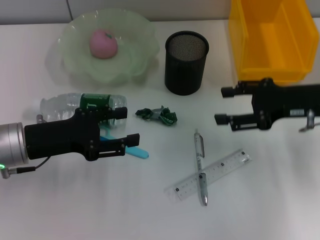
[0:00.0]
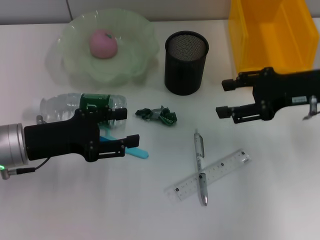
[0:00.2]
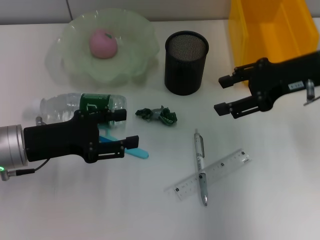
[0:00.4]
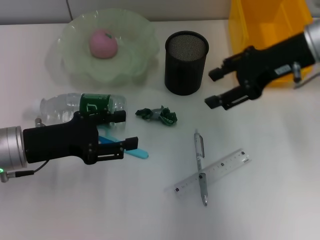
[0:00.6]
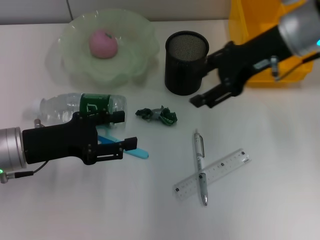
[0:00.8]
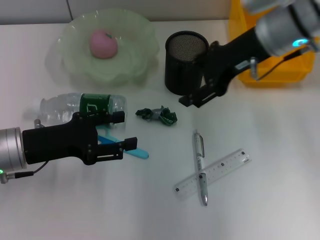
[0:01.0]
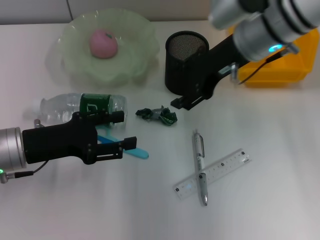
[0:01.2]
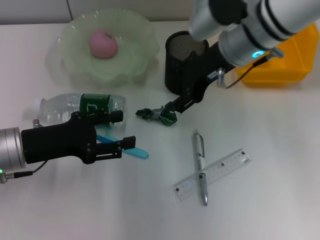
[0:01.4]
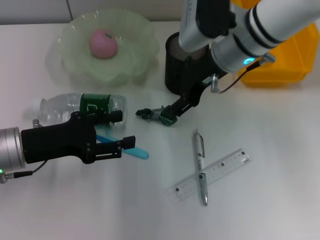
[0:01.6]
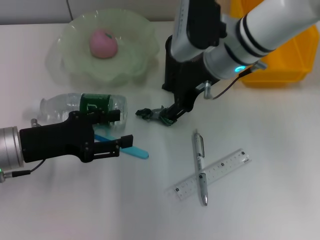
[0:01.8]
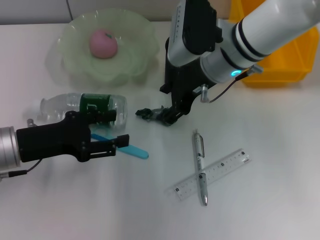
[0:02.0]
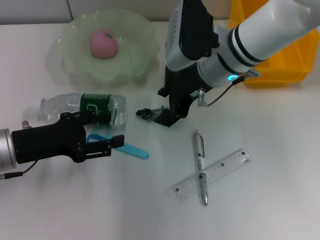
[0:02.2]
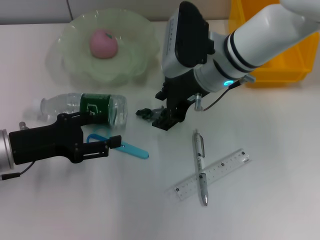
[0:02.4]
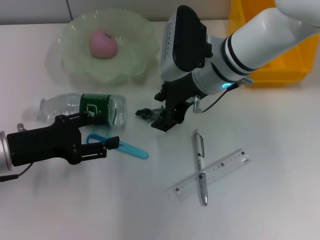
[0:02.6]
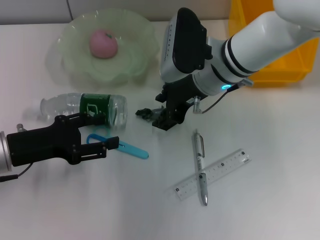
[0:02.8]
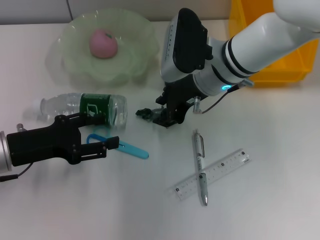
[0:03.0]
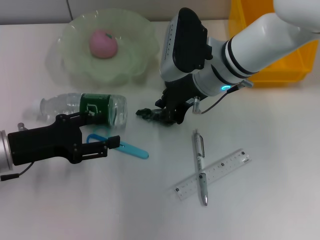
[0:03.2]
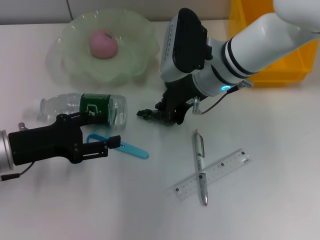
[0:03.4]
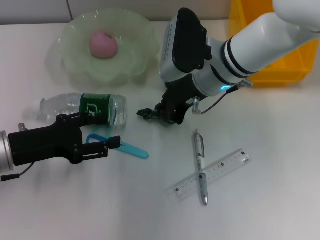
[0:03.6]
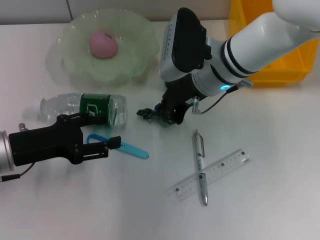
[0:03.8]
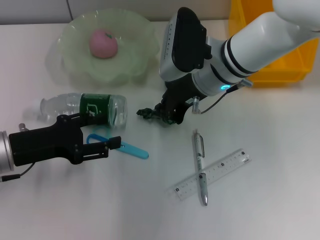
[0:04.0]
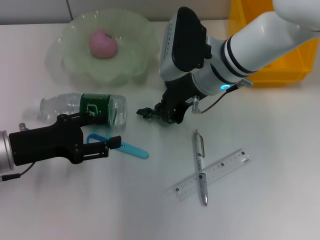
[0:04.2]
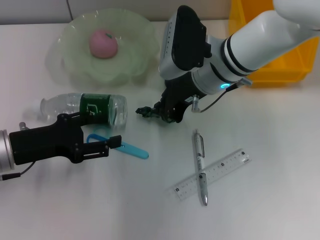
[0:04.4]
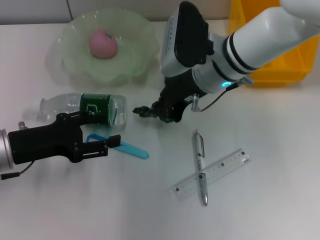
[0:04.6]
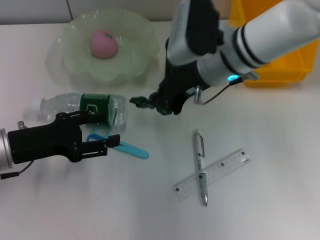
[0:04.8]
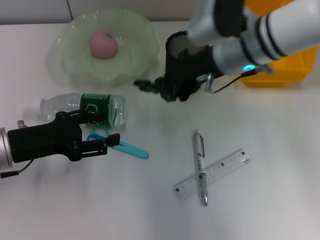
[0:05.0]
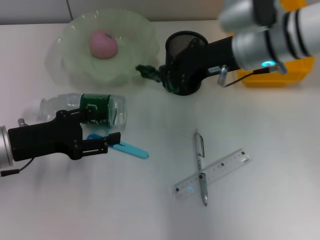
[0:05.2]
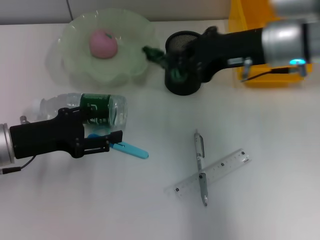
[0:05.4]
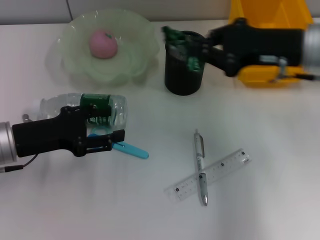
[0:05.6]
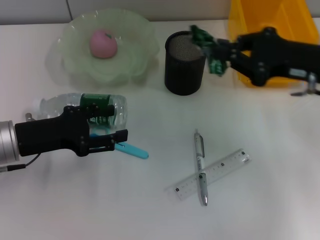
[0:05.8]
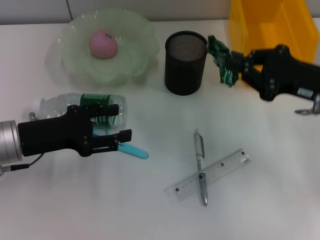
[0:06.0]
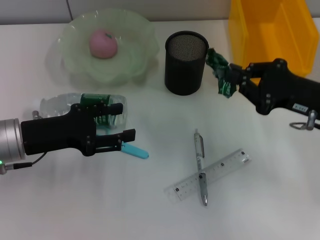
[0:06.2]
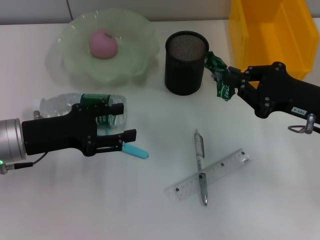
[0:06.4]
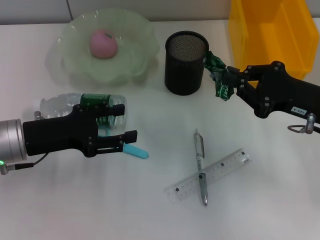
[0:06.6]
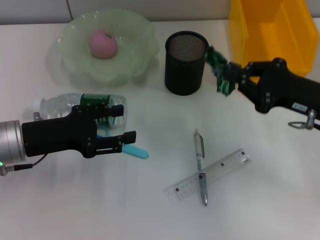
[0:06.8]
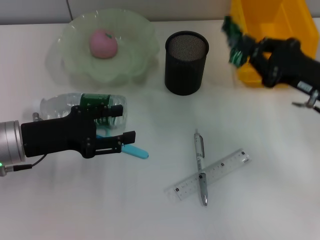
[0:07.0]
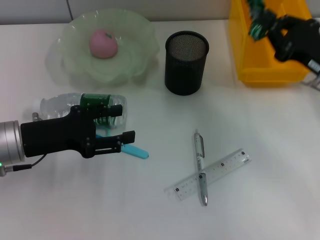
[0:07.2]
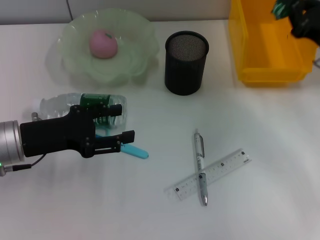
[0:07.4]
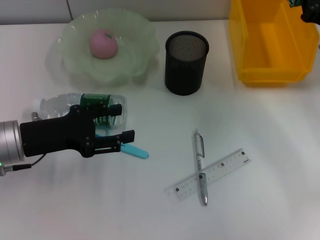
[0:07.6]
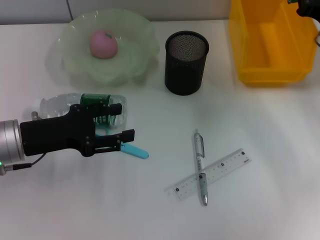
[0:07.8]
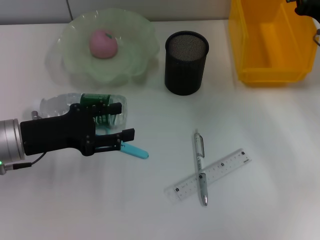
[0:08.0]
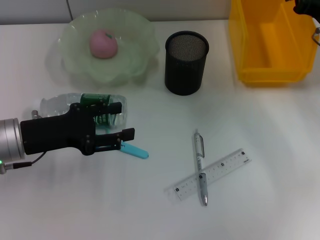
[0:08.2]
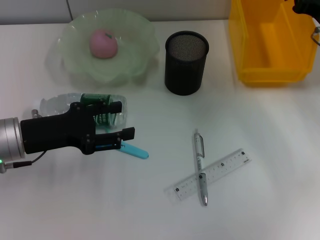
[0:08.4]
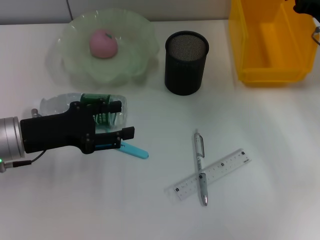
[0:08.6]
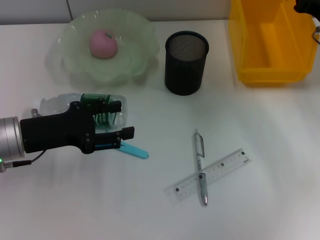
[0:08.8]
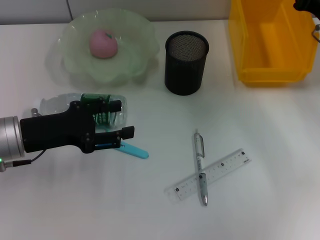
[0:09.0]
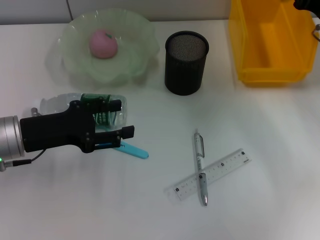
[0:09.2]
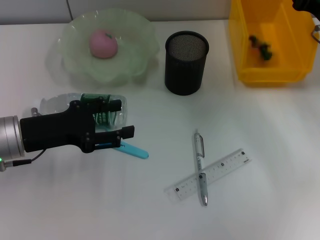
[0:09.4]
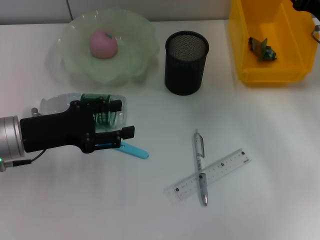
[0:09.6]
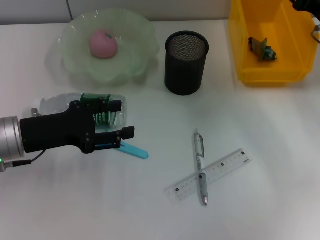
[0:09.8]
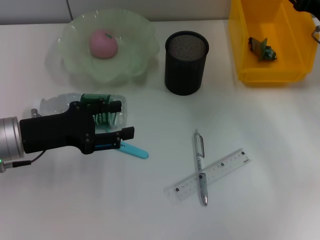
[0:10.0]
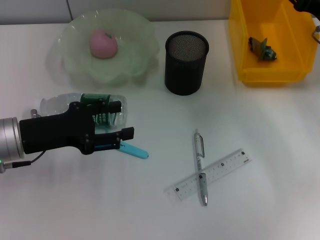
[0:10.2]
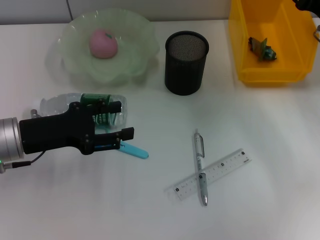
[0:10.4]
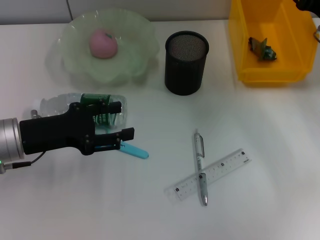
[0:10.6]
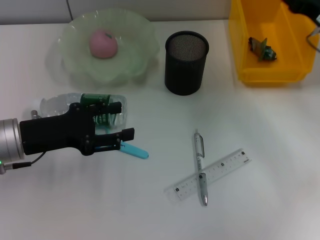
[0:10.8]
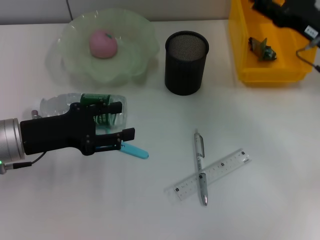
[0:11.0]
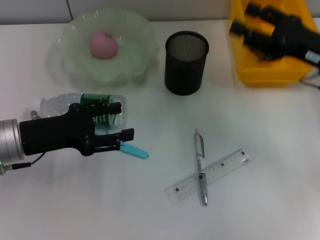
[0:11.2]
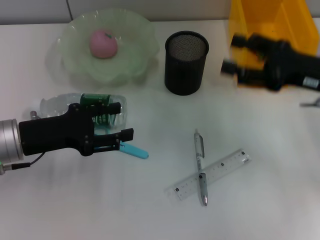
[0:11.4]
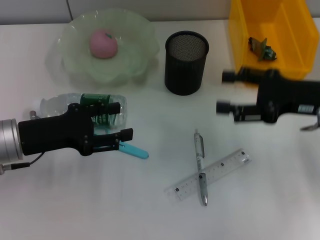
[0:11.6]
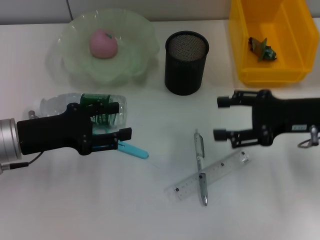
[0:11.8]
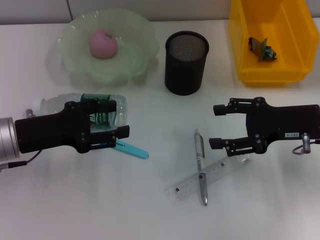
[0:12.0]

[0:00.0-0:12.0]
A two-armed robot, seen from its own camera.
Step, 0:00.0 to 0:04.2: Grab the plastic with the right hand.
Step, 0:04.6 to 0:09.6: Place the plastic into the trash can with the right hand.
0:00.0 to 0:01.6: The right gripper moves to the left and forward, about 20 cm.
0:01.6 to 0:03.0: The grippers move only a little.
0:03.0 to 0:04.4: The right gripper closes up.
0:04.4 to 0:06.0: The right gripper moves to the right and backward, roughly 20 cm.
0:06.0 to 0:07.6: The right gripper travels forward by approximately 5 cm.
0:07.6 to 0:09.0: There are only small adjustments of the grippers.
0:09.0 to 0:10.4: The right gripper opens its fingers.
0:10.4 to 0:12.0: The right gripper shifts about 10 cm backward.

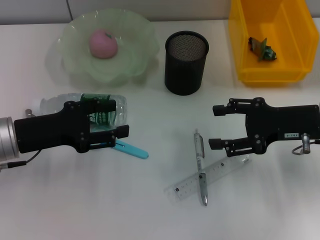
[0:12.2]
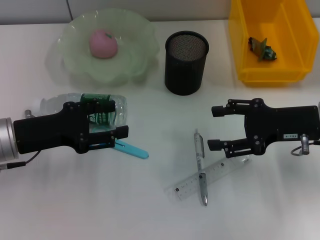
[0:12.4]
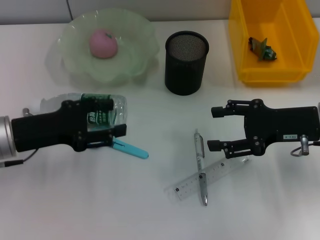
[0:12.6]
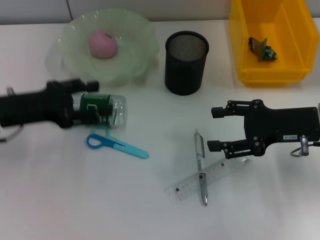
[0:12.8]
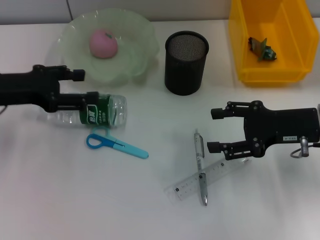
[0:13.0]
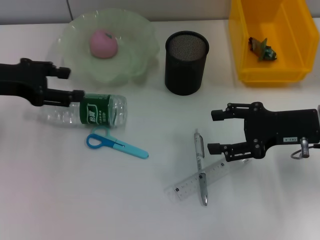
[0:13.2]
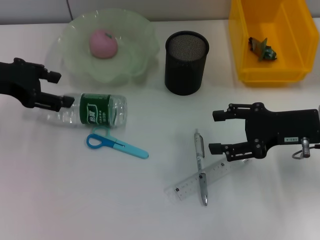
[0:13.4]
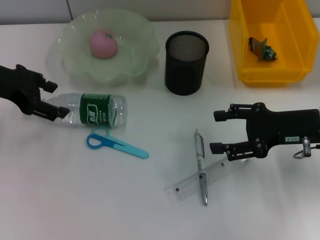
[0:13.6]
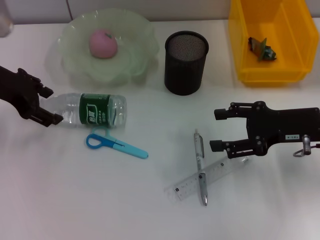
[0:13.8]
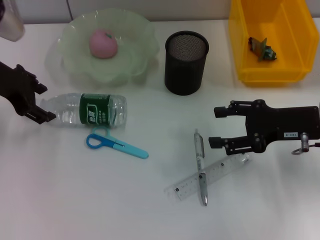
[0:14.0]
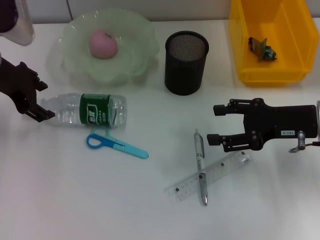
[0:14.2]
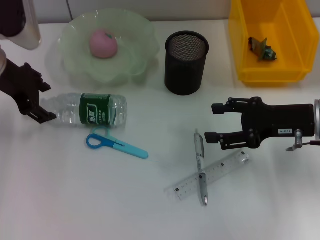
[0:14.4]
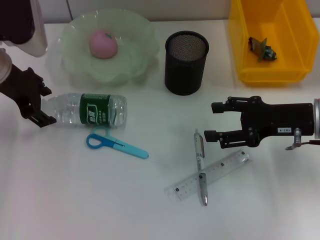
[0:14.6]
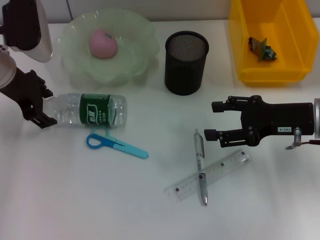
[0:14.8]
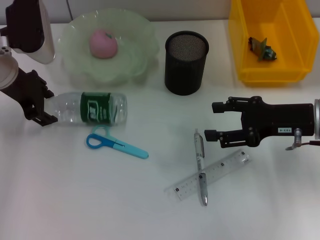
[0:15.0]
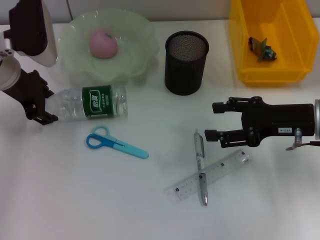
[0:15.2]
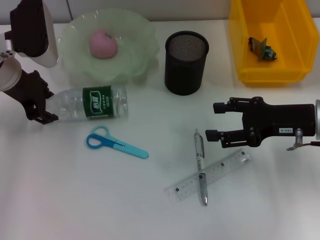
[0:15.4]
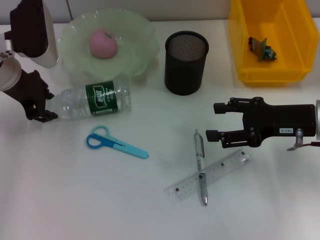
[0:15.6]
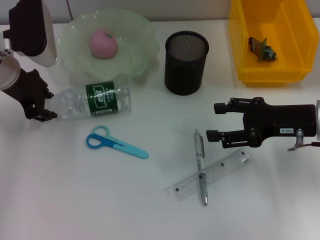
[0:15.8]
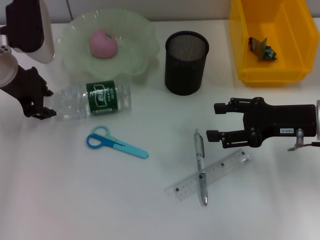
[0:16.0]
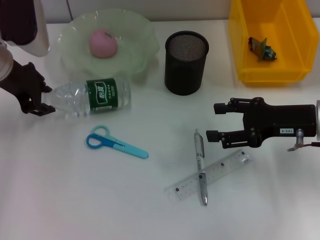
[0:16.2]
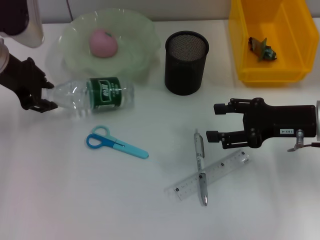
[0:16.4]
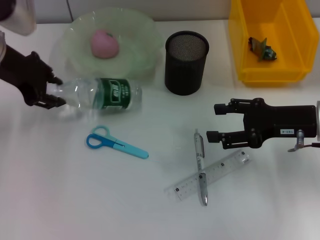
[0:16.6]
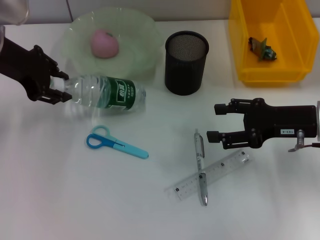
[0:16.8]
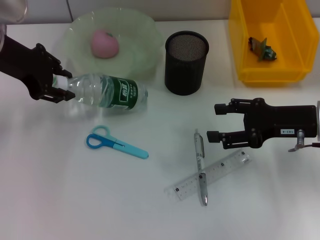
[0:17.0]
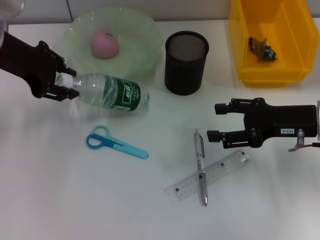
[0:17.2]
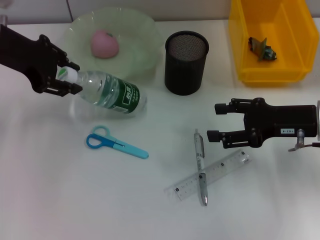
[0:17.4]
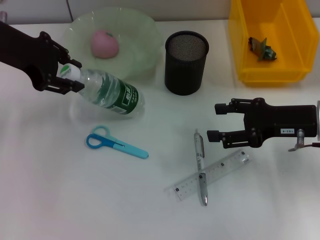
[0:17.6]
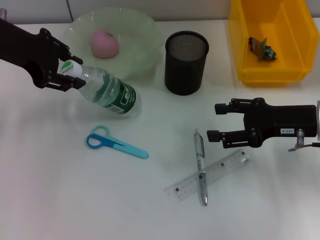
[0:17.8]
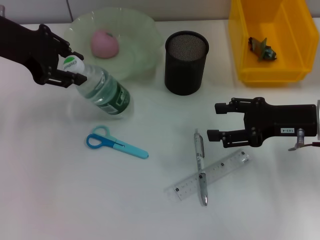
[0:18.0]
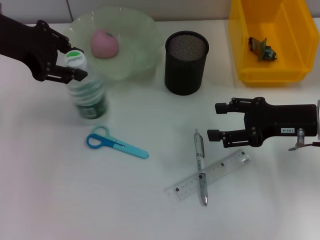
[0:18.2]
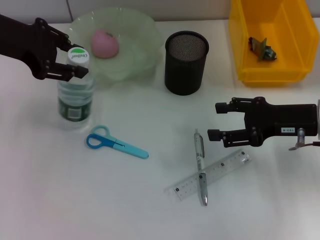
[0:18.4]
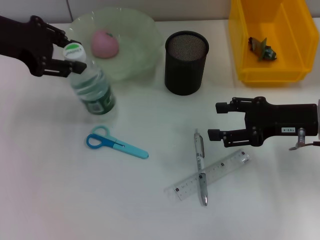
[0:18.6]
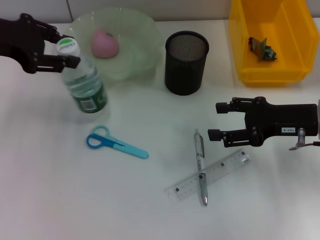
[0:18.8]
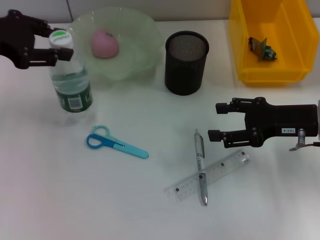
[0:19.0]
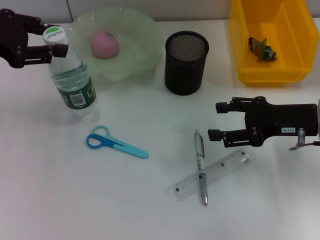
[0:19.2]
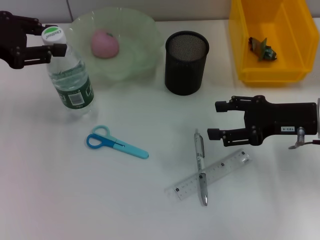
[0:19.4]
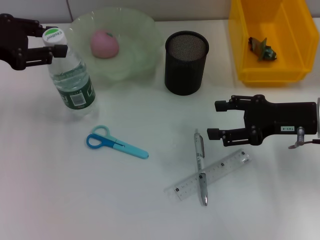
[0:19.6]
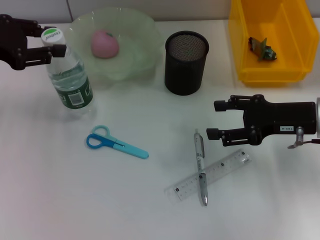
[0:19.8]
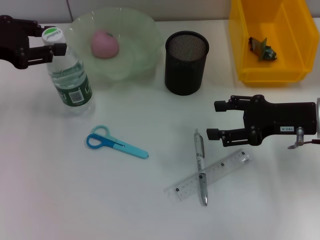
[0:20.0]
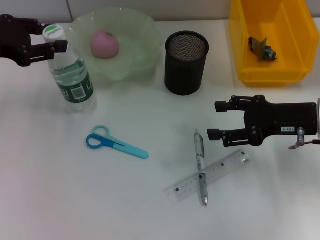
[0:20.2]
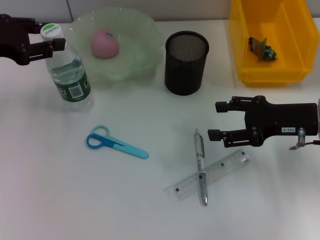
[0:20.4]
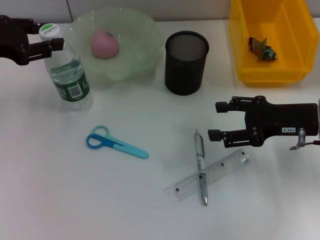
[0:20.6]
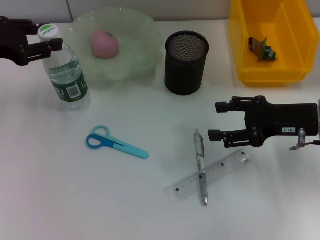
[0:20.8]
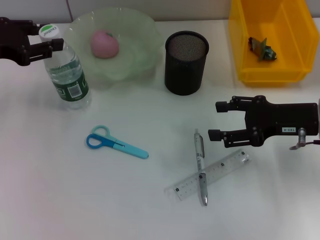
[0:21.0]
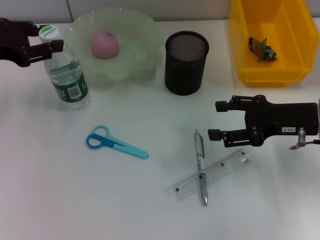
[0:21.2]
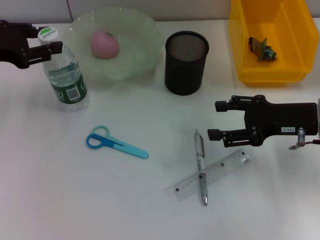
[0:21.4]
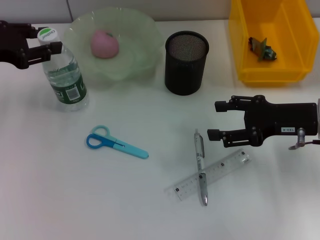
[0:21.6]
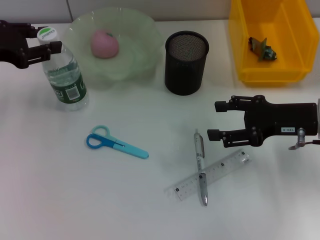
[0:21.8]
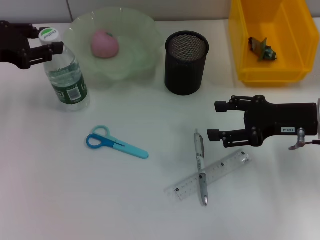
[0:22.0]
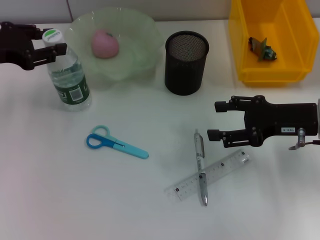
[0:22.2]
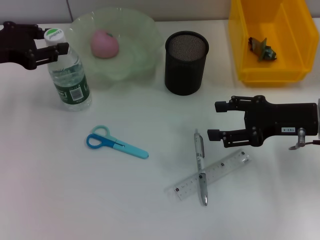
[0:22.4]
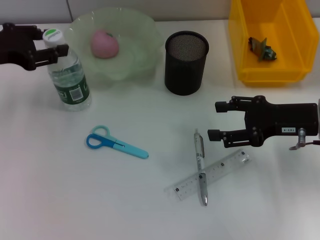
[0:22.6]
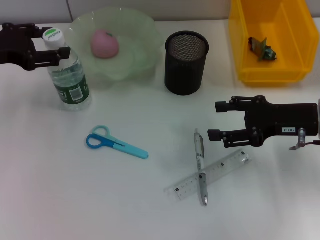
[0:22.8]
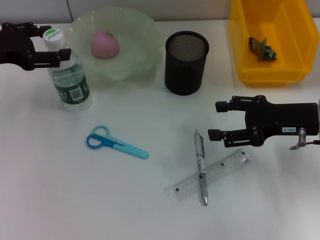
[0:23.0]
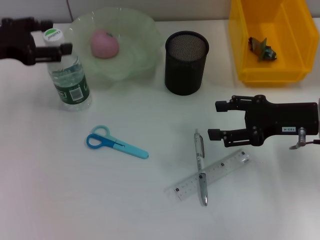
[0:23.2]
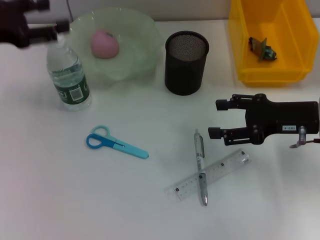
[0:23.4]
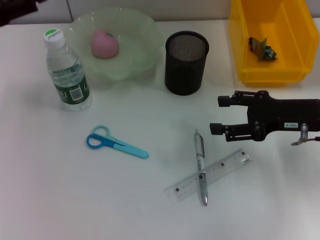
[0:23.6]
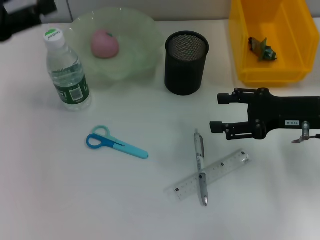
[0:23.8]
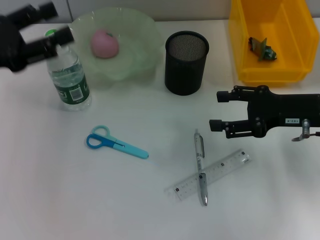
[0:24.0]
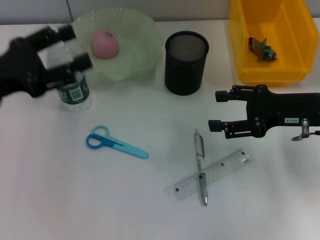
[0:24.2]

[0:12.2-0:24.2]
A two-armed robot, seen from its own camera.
Step, 0:12.2 to 0:16.0: Grab the water bottle with the left hand.
Step, 0:16.2 to 0:23.2: Place the water bottle on the table with the left hand.
0:12.2 to 0:13.8: The left gripper goes about 15 cm upward and forward.
0:13.8 to 0:15.2: The left gripper changes place by about 5 cm.
0:15.2 to 0:16.6: The left gripper moves approximately 5 cm, and closes.
0:16.6 to 0:18.2: There are only small adjustments of the grippers.
0:18.2 to 0:19.8: The left gripper travels to the left by roughly 5 cm.
0:19.8 to 0:21.2: The grippers move only a little.
0:21.2 to 0:22.6: Neither gripper changes place.
0:22.6 to 0:24.2: The left gripper shifts some 10 cm backward, and opens its fingers.
